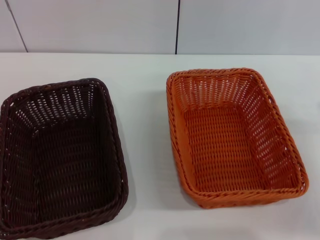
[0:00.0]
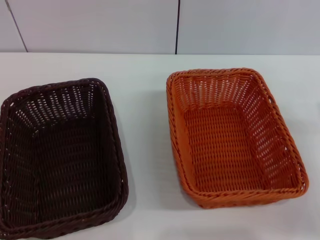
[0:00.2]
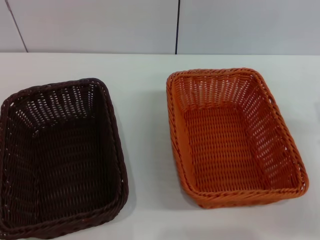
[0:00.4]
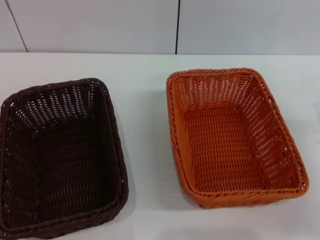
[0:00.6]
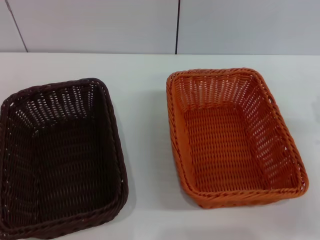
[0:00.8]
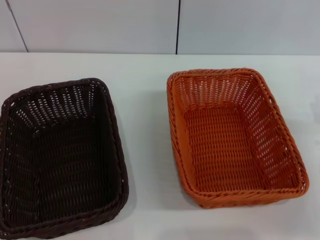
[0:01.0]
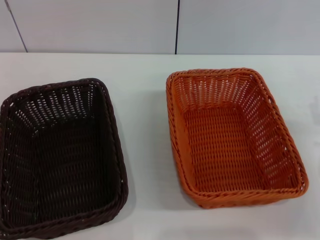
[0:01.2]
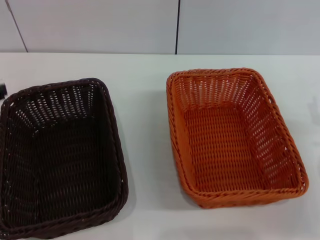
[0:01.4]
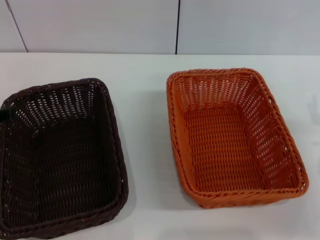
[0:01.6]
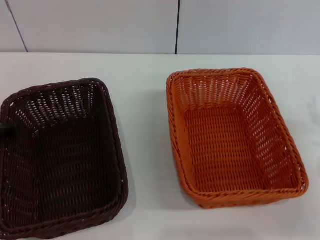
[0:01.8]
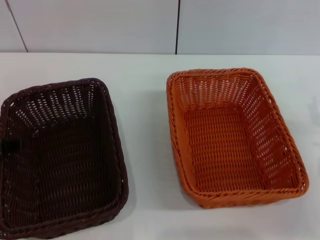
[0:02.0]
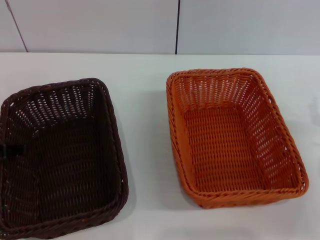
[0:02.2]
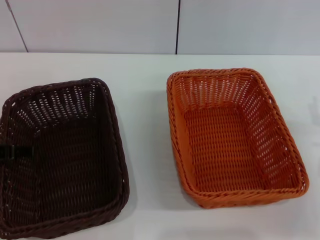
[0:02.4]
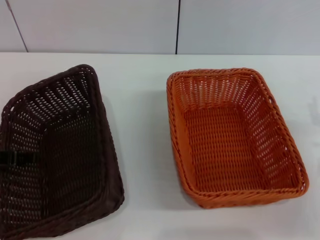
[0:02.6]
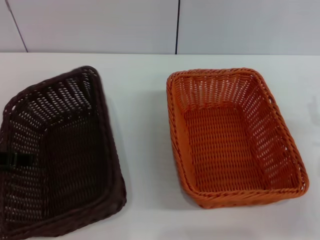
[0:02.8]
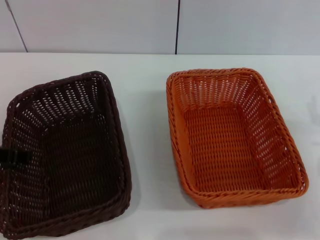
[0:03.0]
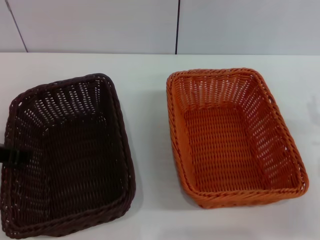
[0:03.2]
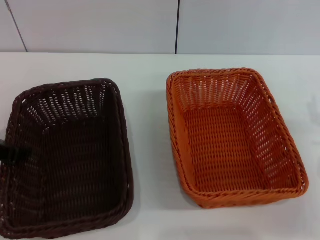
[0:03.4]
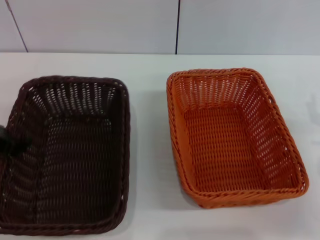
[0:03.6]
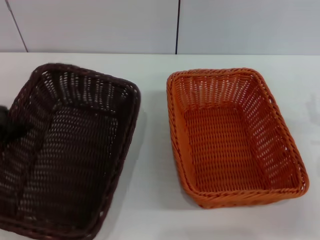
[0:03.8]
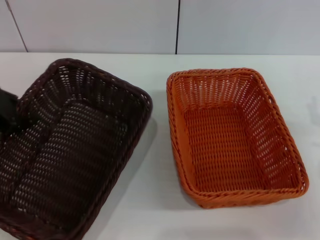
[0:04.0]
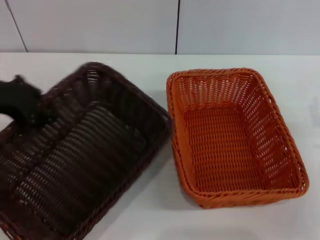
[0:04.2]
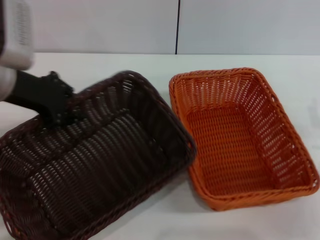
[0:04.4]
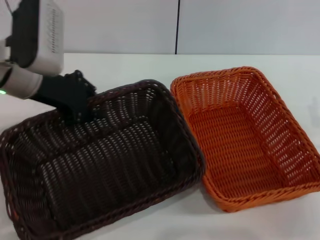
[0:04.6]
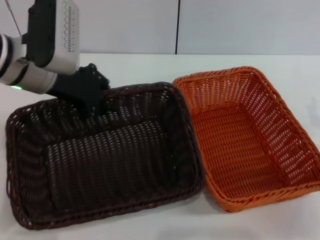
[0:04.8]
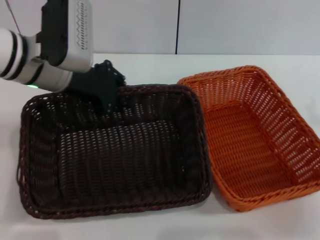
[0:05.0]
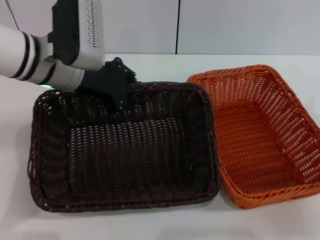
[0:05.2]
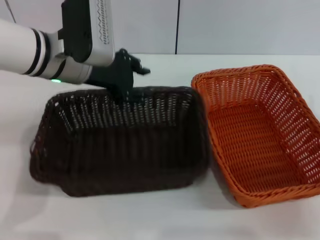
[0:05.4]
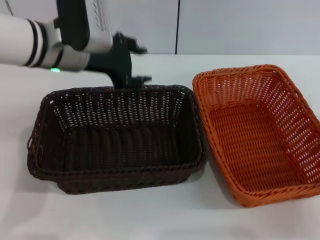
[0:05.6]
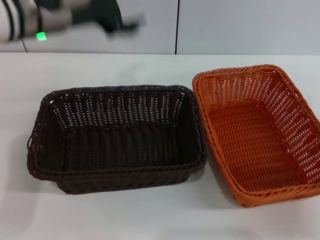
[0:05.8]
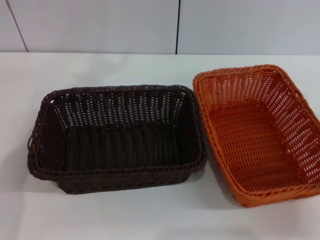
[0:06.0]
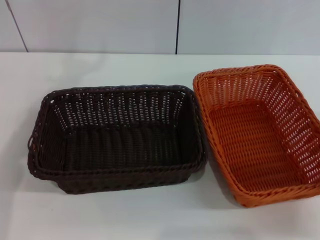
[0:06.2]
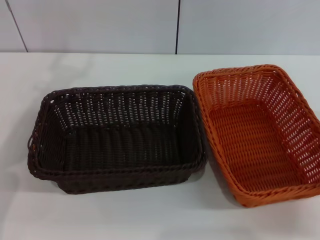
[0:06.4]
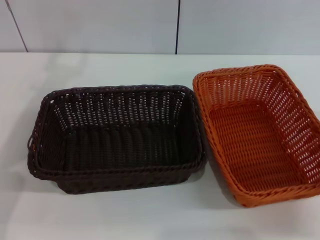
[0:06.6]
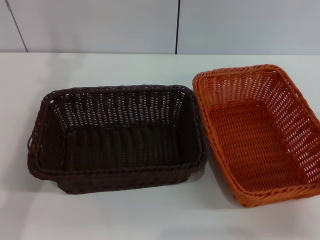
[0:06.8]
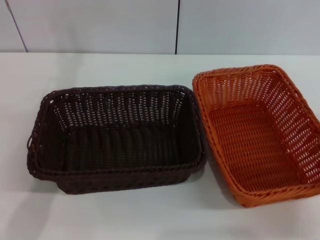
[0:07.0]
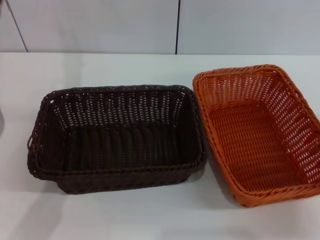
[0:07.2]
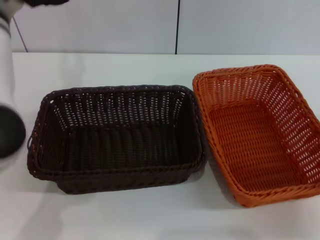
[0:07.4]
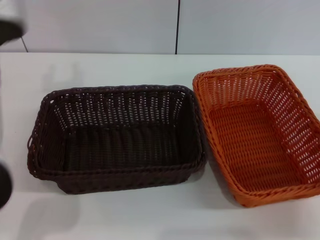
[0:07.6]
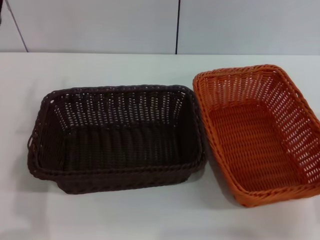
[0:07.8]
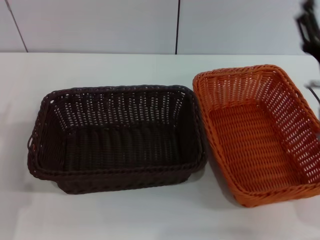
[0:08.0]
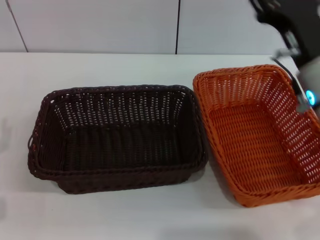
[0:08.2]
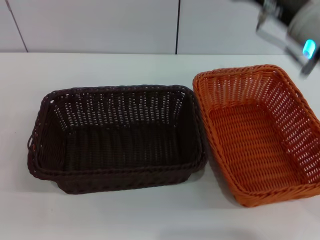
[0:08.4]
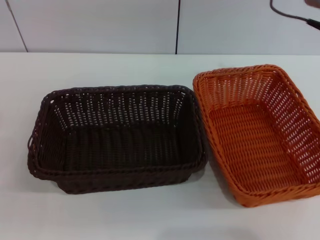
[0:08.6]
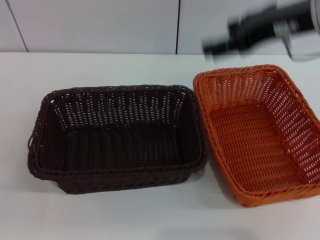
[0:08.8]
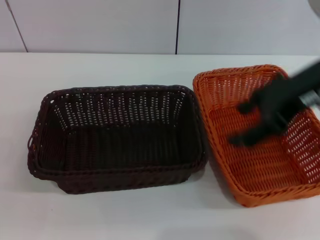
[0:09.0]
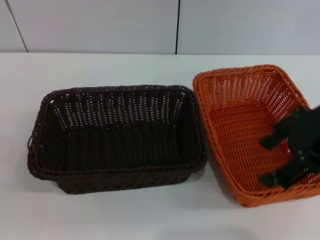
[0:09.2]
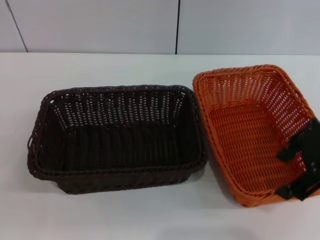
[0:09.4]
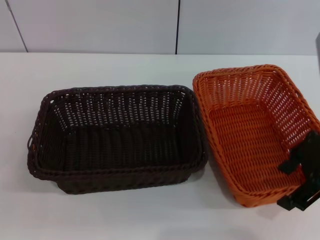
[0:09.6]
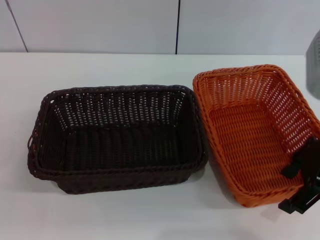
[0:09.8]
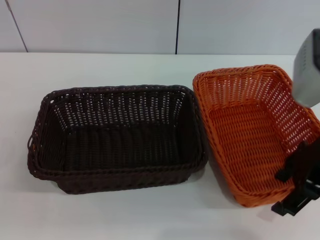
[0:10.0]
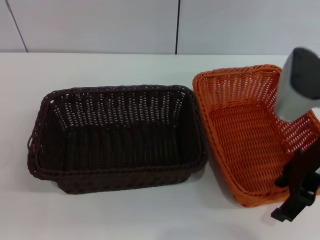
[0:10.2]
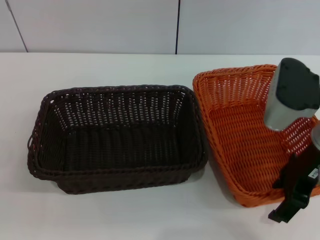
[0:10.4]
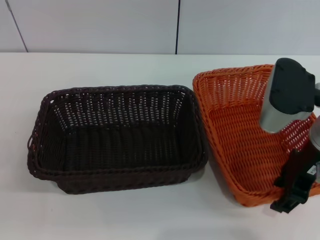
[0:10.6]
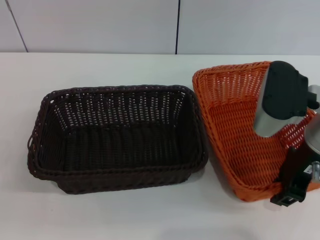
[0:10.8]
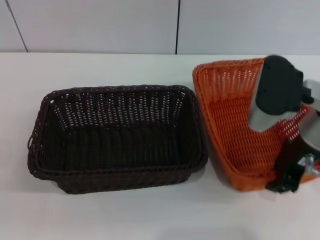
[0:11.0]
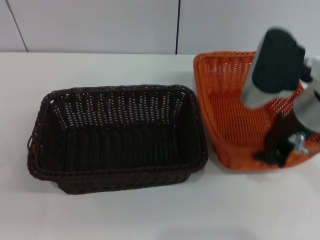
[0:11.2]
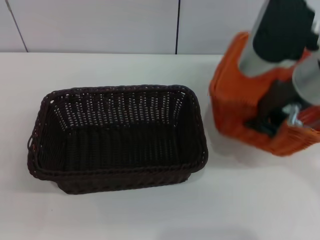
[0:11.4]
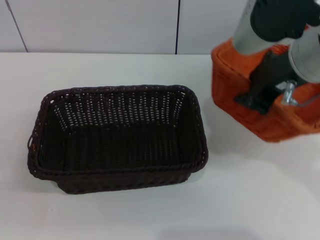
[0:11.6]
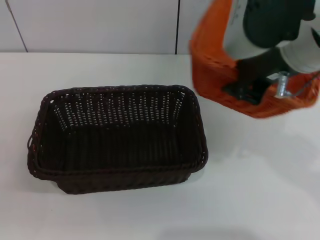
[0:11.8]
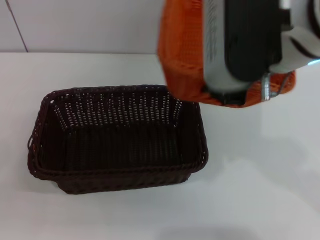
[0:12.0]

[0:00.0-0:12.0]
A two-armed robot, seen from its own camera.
Step, 0:00.0 to 0:03.8: Pick up the dark basket with the left gripper.
Step, 0:04.0 to 0:05.4: Place the dark basket in the center of view with the left gripper.
Step, 0:05.6 to 0:11.4: Pick up the light basket with the right gripper.
0:01.6 to 0:03.0: There are only small adjustments of the grippers.
0:03.0 to 0:04.4: The left gripper travels forward and upward by approximately 10 cm, and closes up.
0:04.4 to 0:06.0: The left gripper travels upward by roughly 5 cm, moves about 10 cm to the right and comes back, and opens.
0:06.0 to 0:07.6: The left gripper travels downward and backward by approximately 10 cm.
0:07.6 to 0:09.0: The left gripper goes about 25 cm downward, to the left and backward; the right gripper travels upward by about 20 cm.
0:09.0 to 0:10.4: The right gripper is displaced downward by roughly 10 cm.
0:10.4 to 0:12.0: The right gripper heads upward and to the left, covering approximately 15 cm, and closes up.

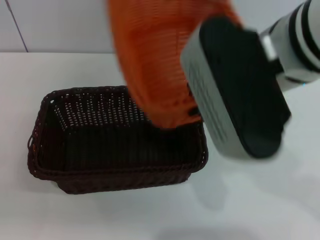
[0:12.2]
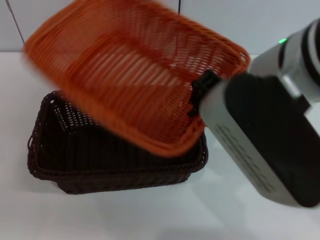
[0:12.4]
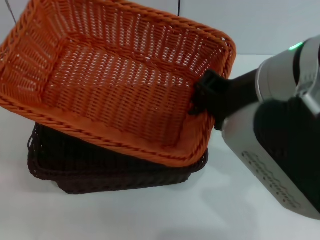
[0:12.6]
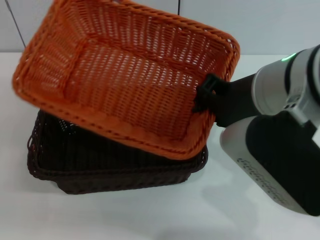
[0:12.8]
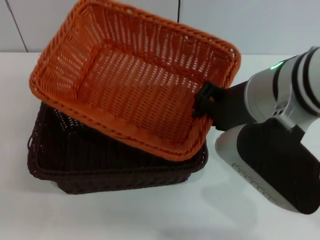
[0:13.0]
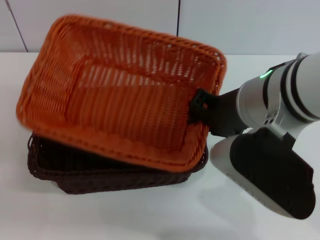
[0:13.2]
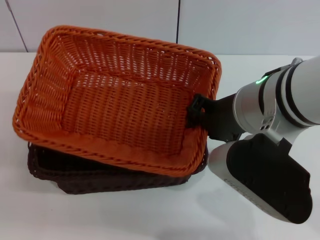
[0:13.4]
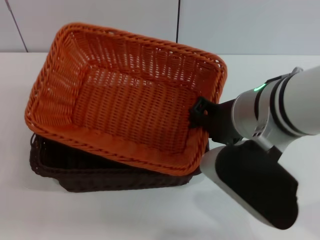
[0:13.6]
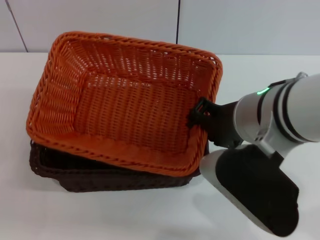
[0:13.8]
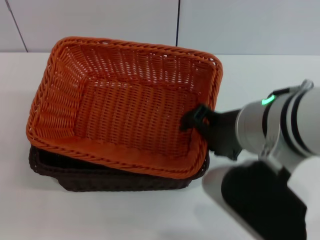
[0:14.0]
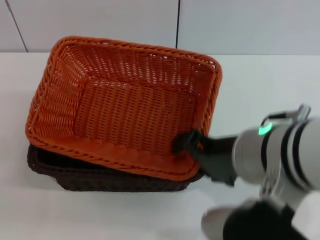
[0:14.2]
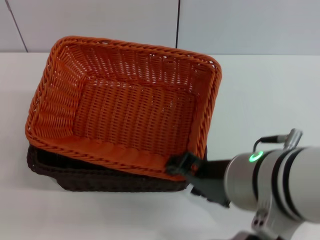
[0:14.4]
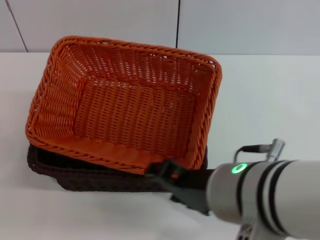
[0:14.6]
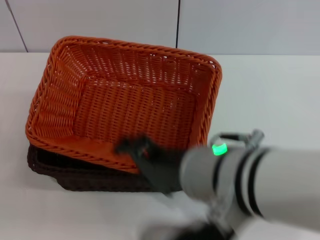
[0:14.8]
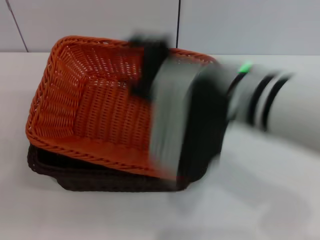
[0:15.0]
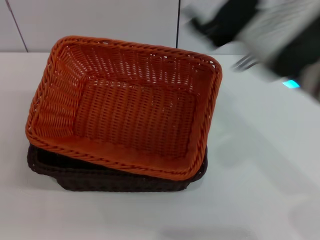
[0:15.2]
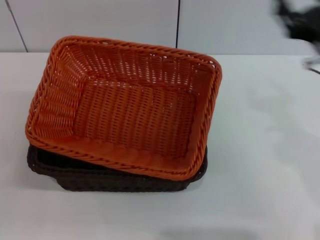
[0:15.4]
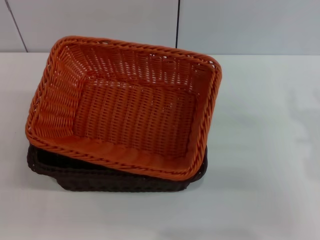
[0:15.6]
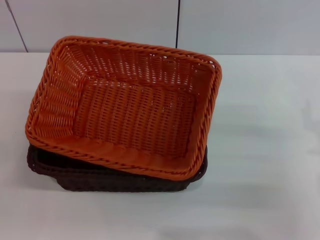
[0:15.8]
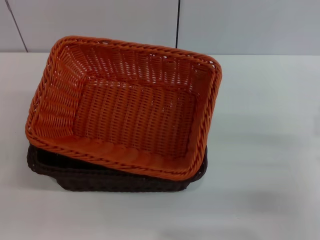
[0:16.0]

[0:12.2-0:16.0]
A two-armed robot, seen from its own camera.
Step, 0:12.2 to 0:13.8: Place the light basket on the dark basket with the right gripper.
0:12.2 to 0:13.4: The right gripper travels downward by some 5 cm.
0:13.4 to 0:14.8: The right gripper goes about 10 cm backward, and opens up.
0:14.8 to 0:16.0: The right gripper is displaced to the right and downward by approximately 25 cm.
